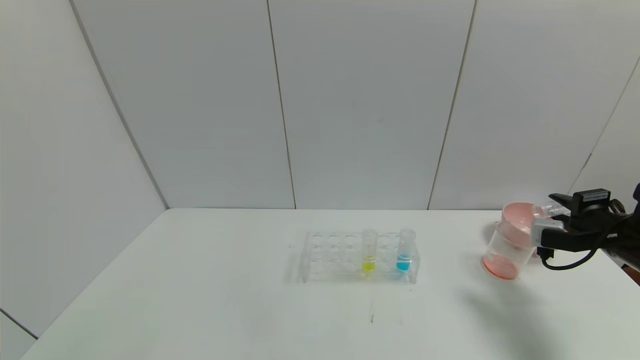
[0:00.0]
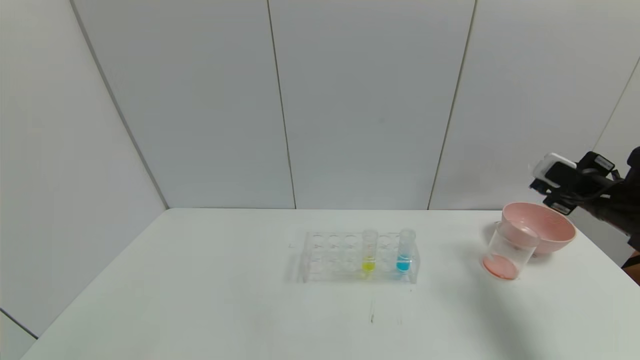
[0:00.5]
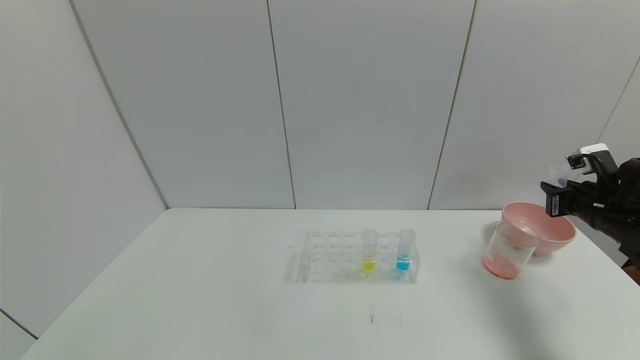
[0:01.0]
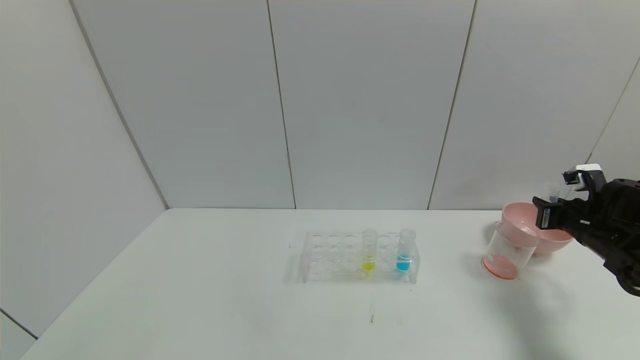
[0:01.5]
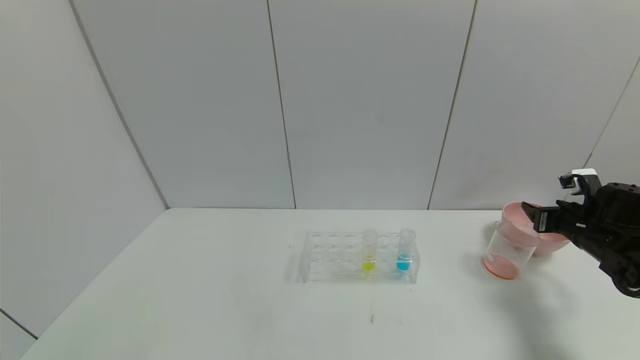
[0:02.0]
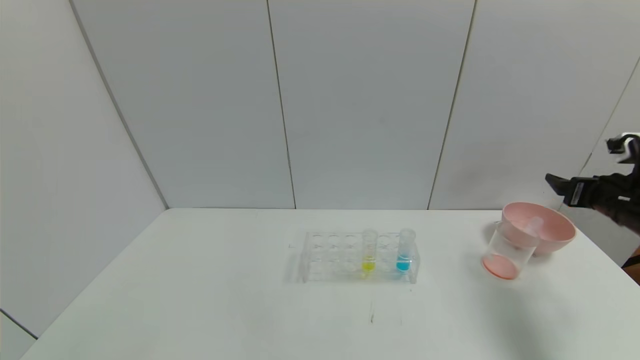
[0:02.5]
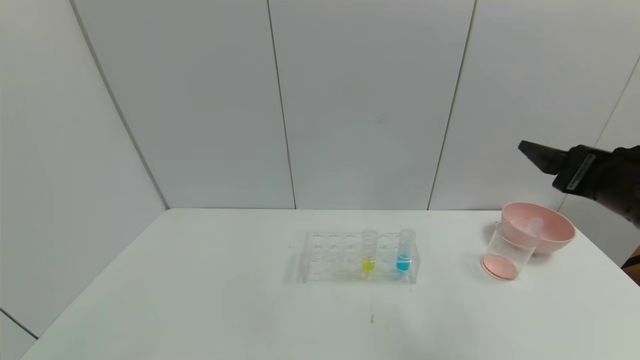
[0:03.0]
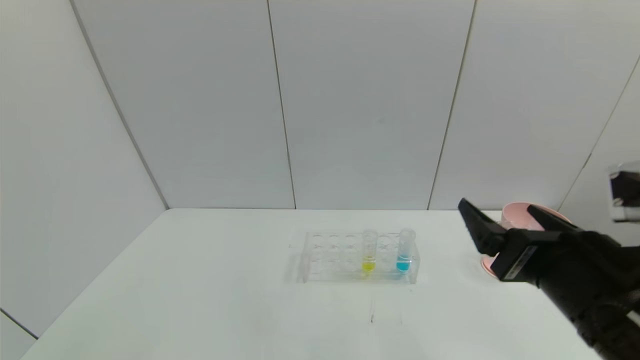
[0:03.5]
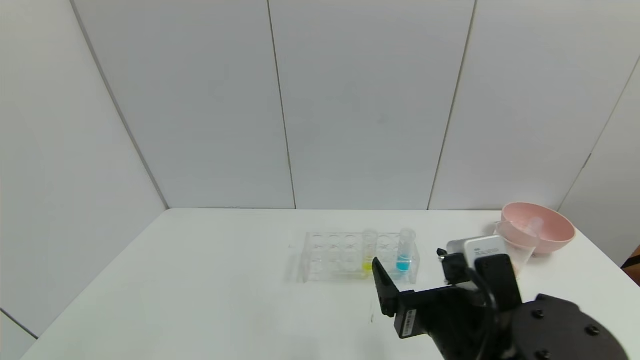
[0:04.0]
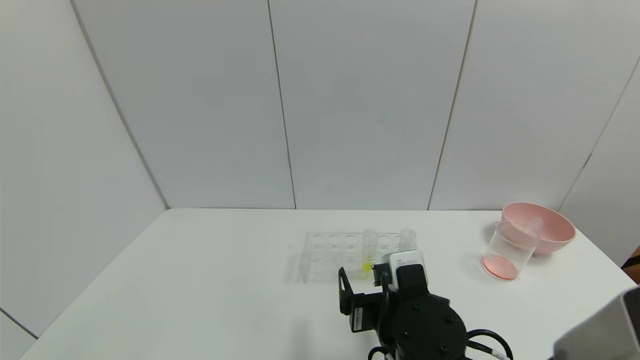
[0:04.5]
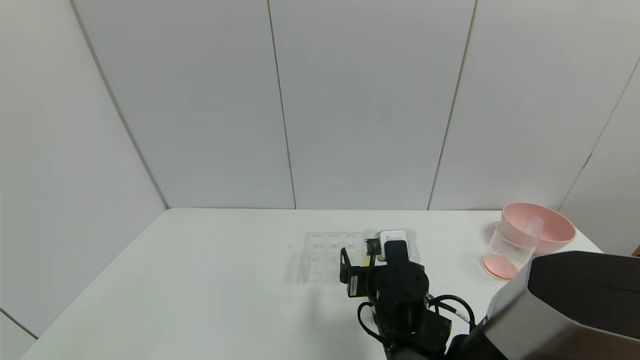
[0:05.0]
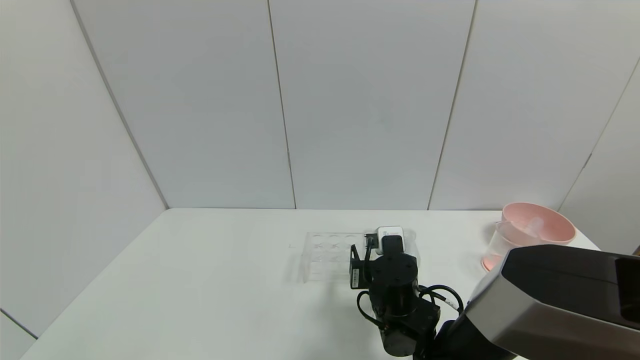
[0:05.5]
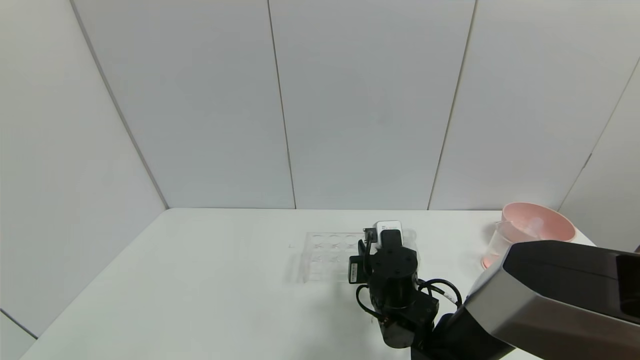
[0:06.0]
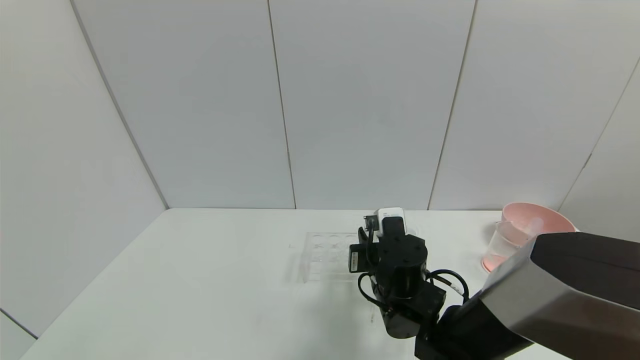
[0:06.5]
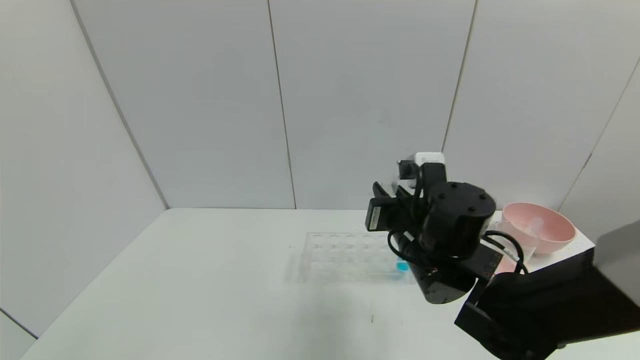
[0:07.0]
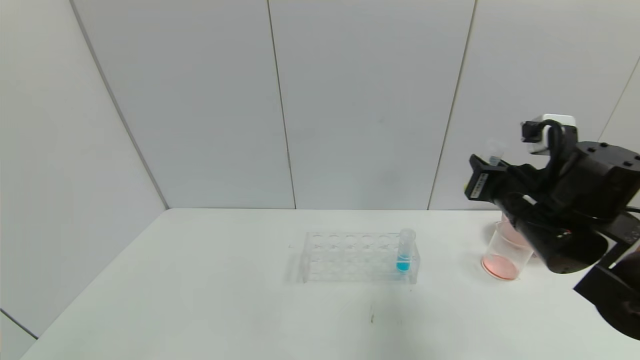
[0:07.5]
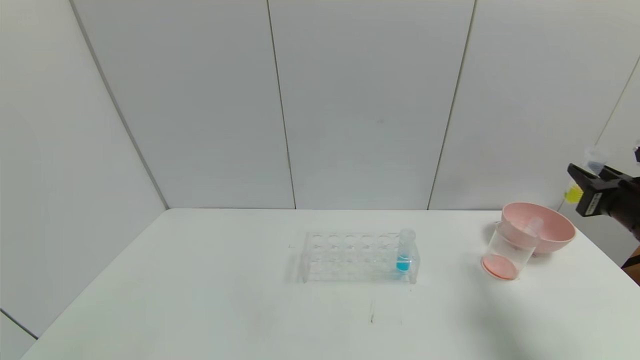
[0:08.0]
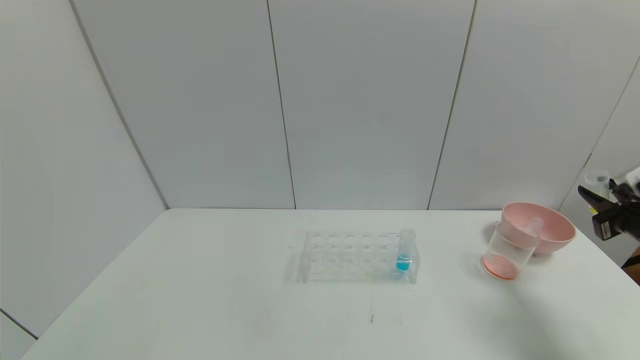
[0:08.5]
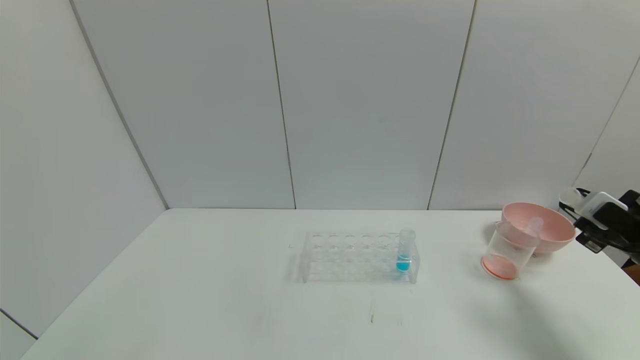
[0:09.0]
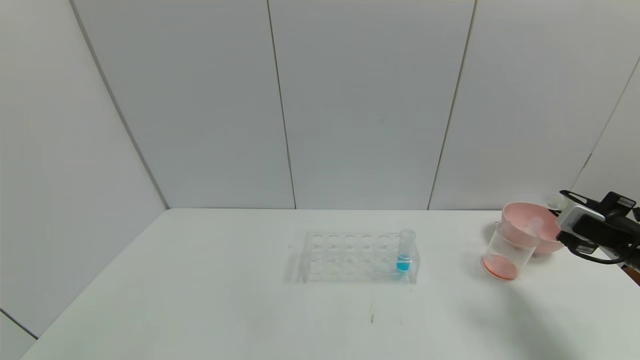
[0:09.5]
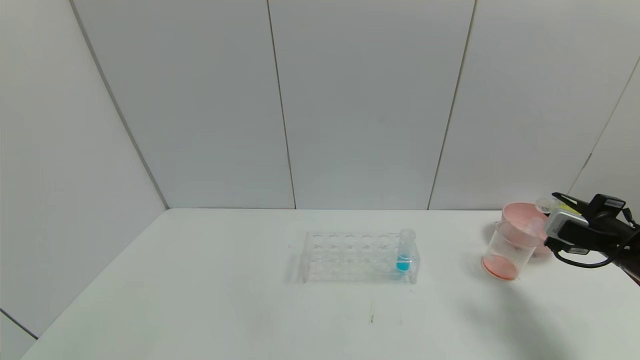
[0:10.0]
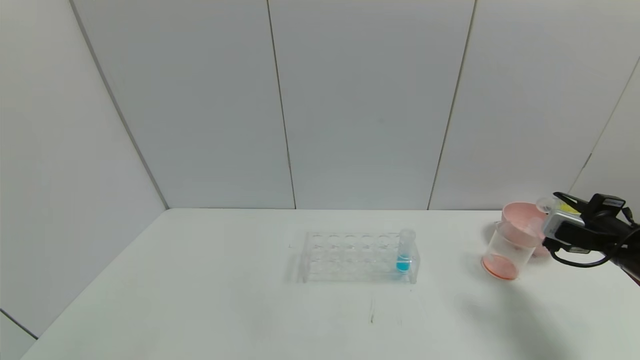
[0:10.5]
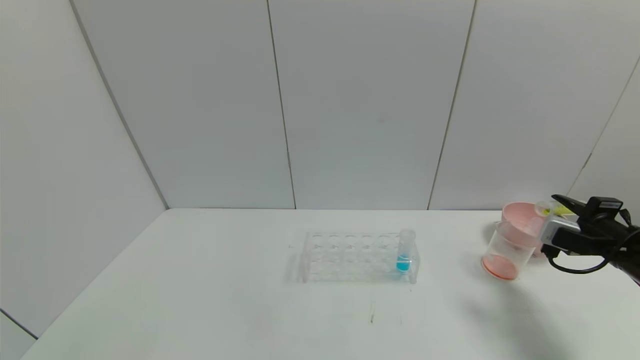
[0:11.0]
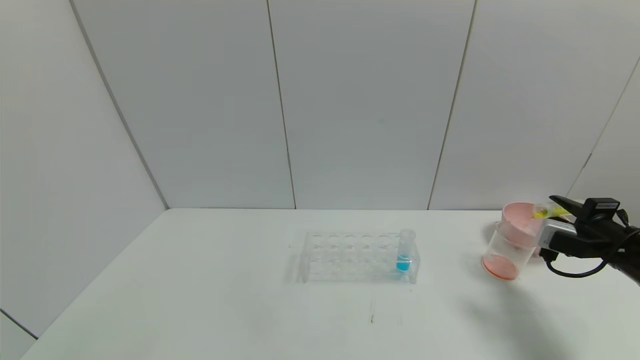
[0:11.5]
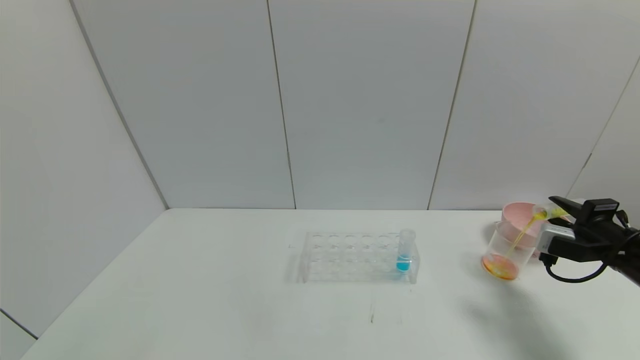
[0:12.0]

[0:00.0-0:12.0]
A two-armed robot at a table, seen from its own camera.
Task of the whole recording: pick up the test tube with yellow pigment and the test tube with red pigment by grippers and pour them into the beaker.
Step, 0:00.5 to 0:01.5: Place the test tube into the bowl with the right gripper.
Step, 0:02.0 to 0:06.0: Grasp the yellow reagent with the right gripper.
0:00.0 to 0:02.0: The right gripper moves forward, approximately 5 cm, and opens.
0:02.0 to 0:04.0: The right gripper travels to the left and backward by some 35 cm, and opens its fingers.
0:04.0 to 0:06.0: The right gripper travels forward and downward by about 15 cm, and closes up.
0:06.0 to 0:08.0: The right gripper travels to the right and upward by approximately 35 cm.
0:08.0 to 0:10.0: The right gripper goes about 5 cm downward.
0:10.0 to 0:12.0: The grippers stay close to where they were, moving slightly.

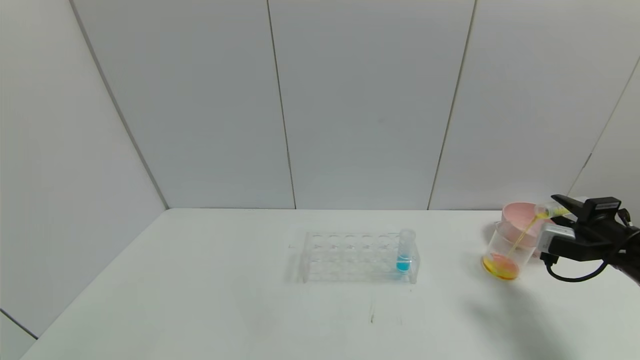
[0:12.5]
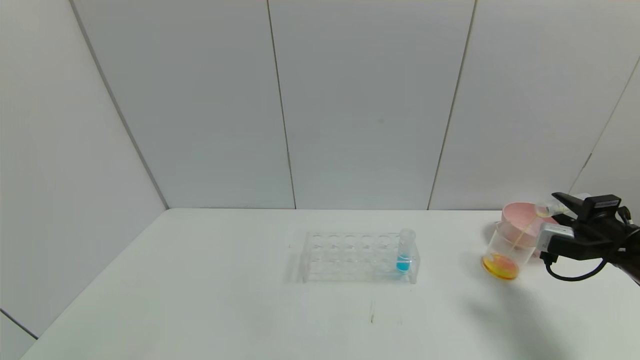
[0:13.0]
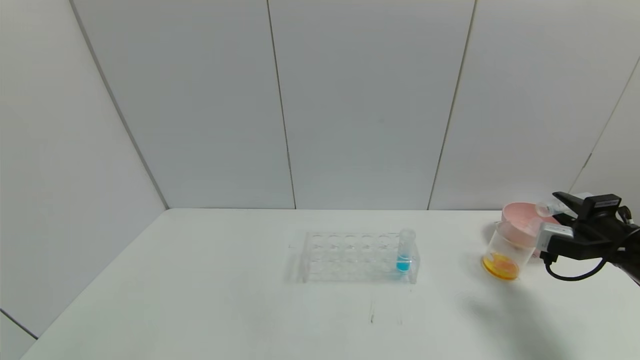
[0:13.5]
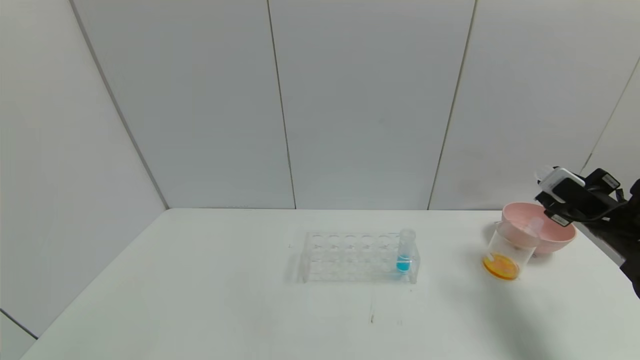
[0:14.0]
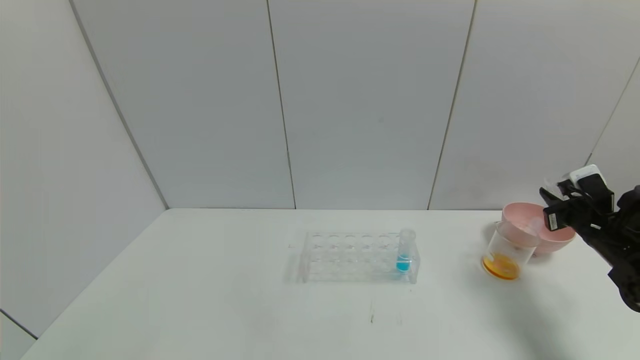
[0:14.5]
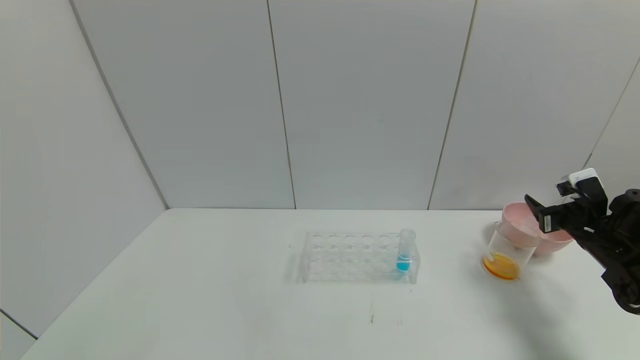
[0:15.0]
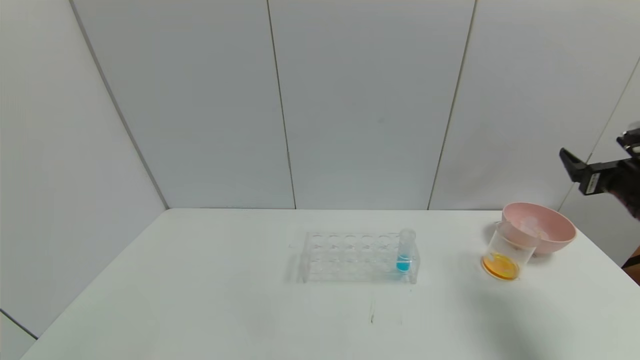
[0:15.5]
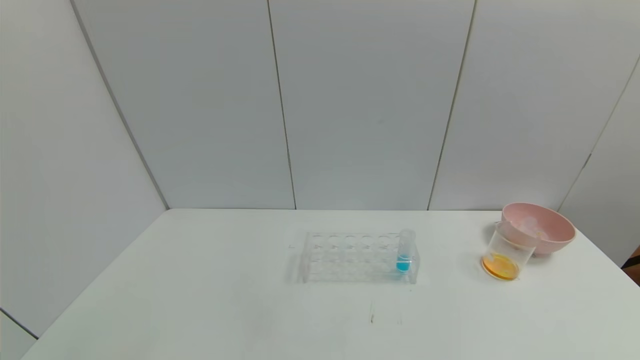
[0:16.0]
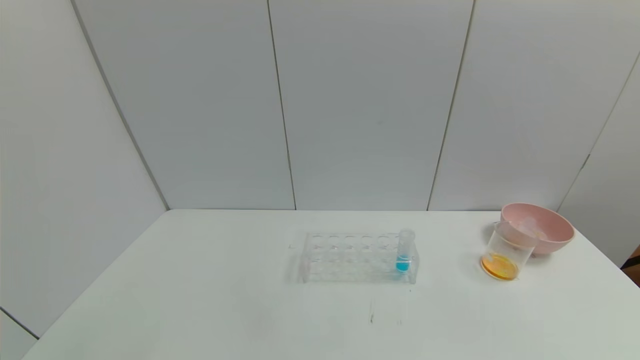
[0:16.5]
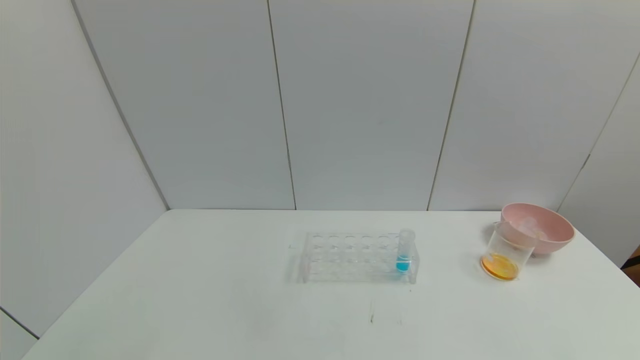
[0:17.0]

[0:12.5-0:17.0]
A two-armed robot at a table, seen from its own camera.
Task of the whole recording: pick up the test tube with yellow pigment and the test tube with red pigment by grippers and pour them into the beaker.
Step, 0:14.0 to 0:14.5: Place the test tube into the bowl with the right gripper.
0:12.5 to 0:14.5: The right gripper shifts approximately 5 cm forward.
0:14.5 to 0:17.0: The right gripper heads backward, covering about 35 cm, and opens its fingers.
